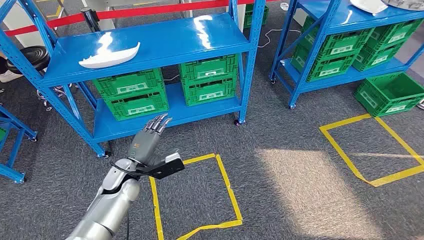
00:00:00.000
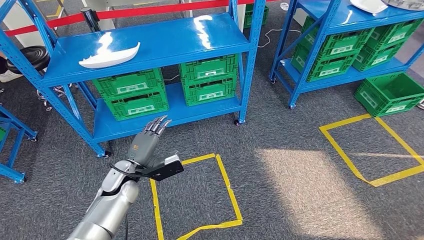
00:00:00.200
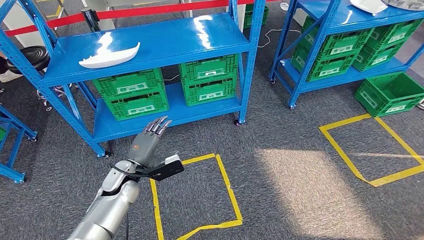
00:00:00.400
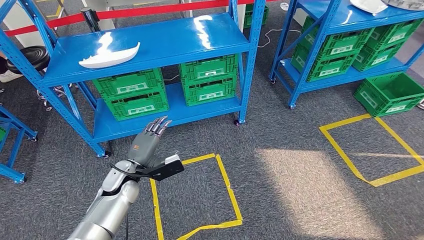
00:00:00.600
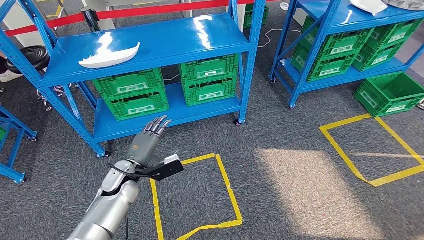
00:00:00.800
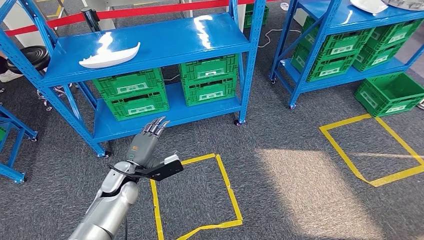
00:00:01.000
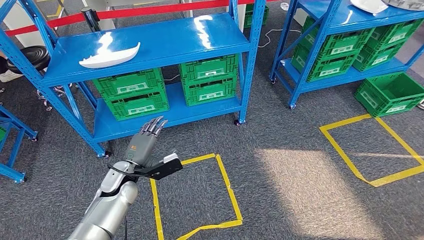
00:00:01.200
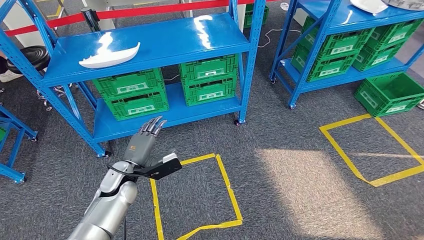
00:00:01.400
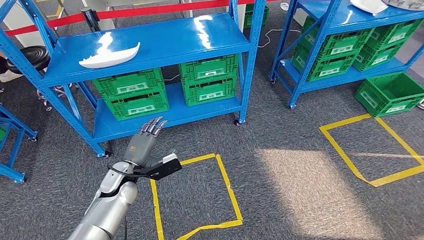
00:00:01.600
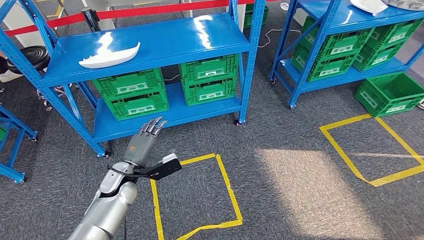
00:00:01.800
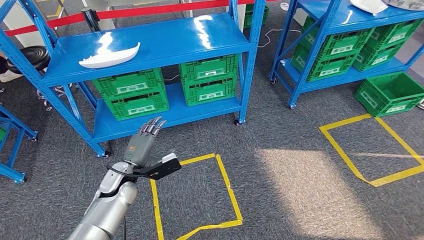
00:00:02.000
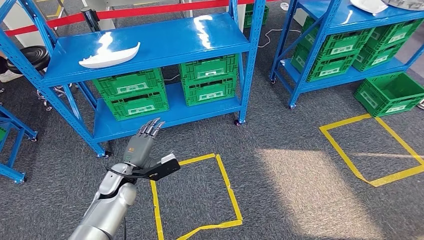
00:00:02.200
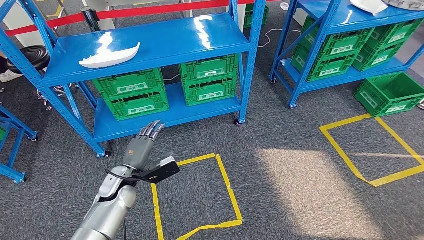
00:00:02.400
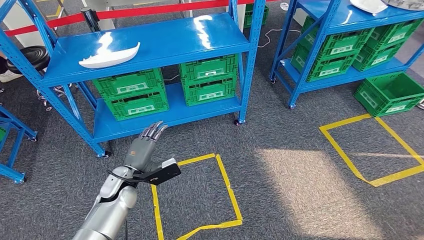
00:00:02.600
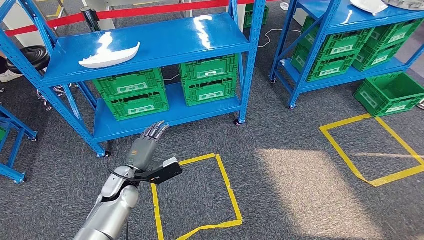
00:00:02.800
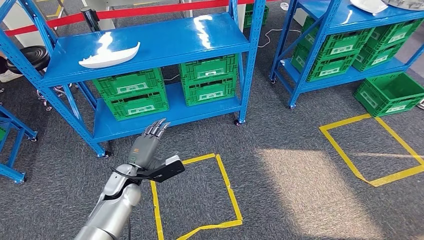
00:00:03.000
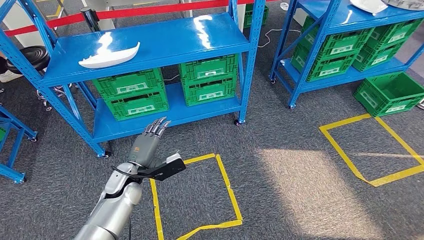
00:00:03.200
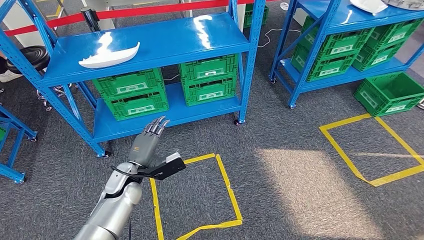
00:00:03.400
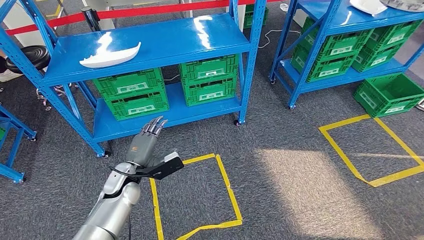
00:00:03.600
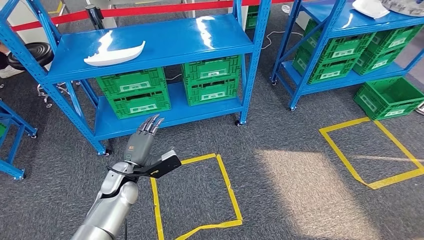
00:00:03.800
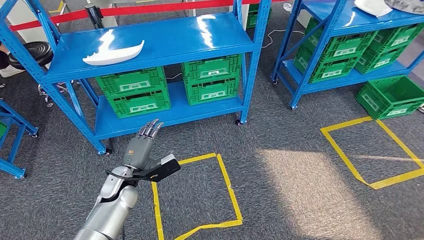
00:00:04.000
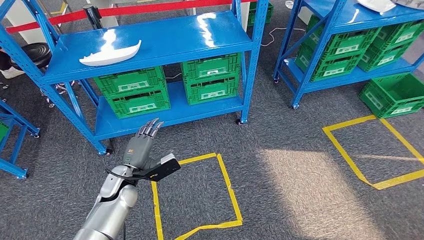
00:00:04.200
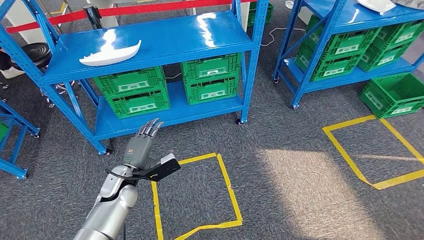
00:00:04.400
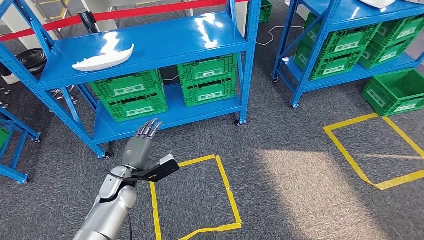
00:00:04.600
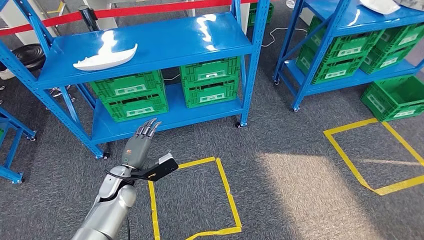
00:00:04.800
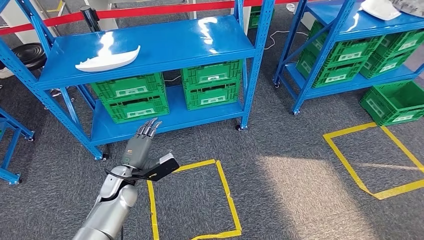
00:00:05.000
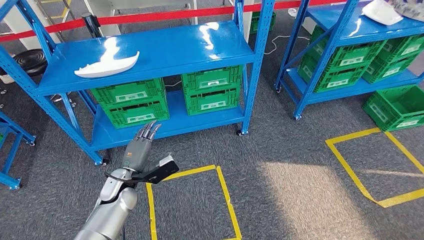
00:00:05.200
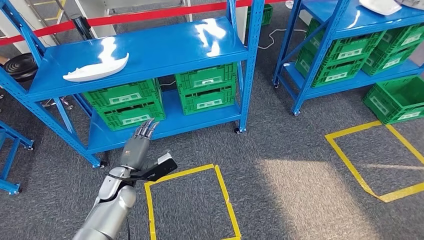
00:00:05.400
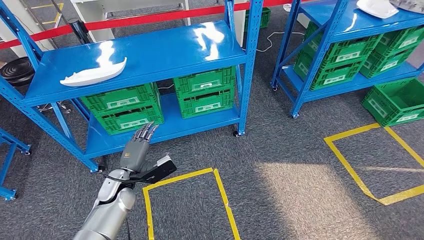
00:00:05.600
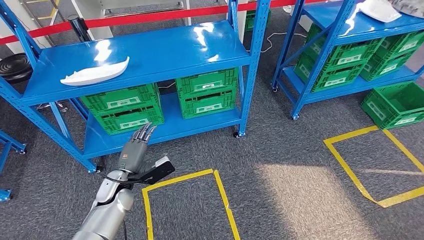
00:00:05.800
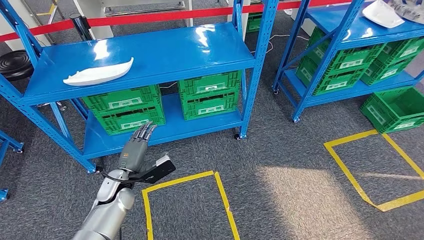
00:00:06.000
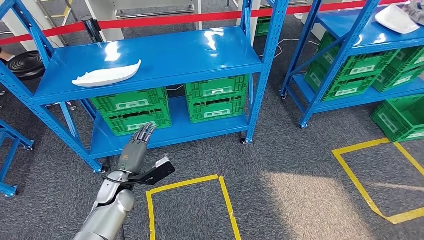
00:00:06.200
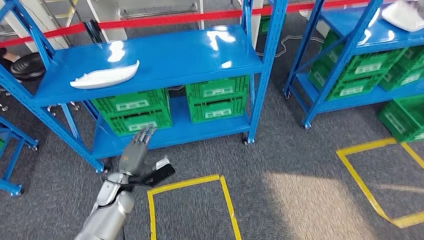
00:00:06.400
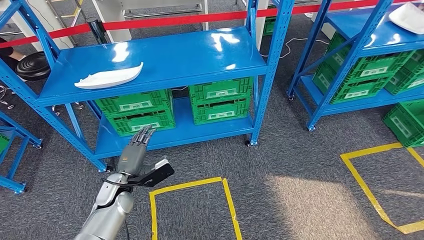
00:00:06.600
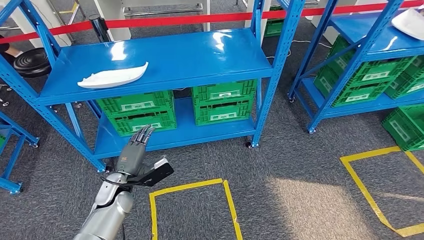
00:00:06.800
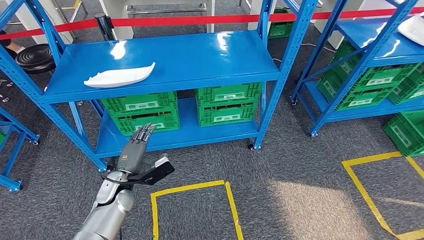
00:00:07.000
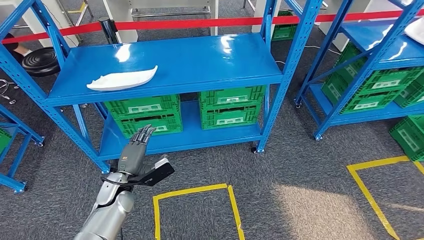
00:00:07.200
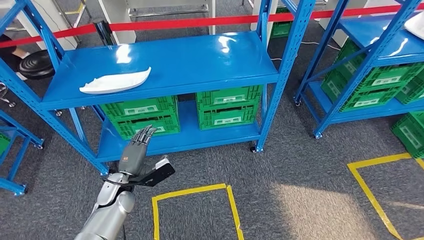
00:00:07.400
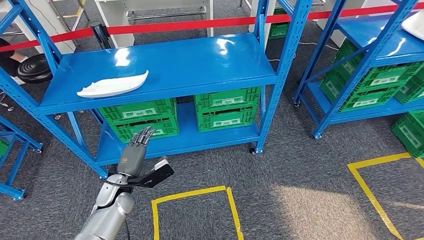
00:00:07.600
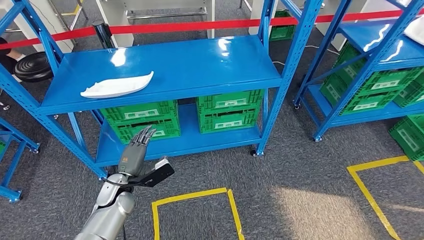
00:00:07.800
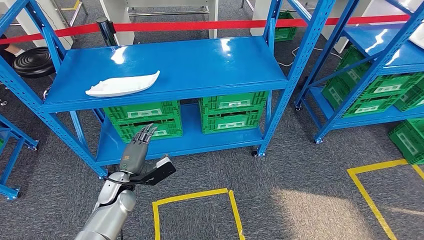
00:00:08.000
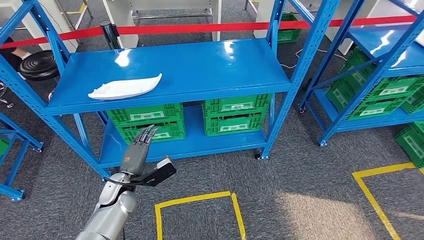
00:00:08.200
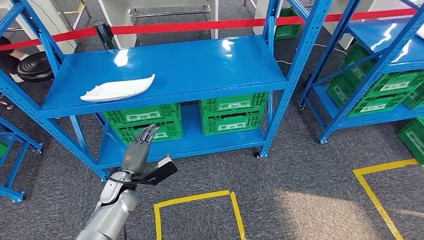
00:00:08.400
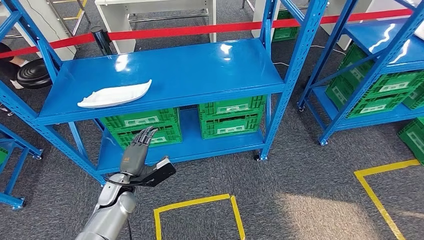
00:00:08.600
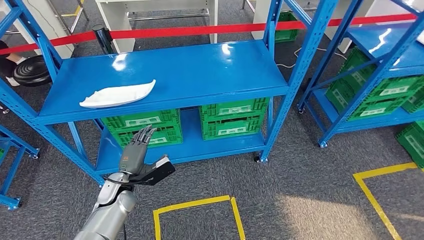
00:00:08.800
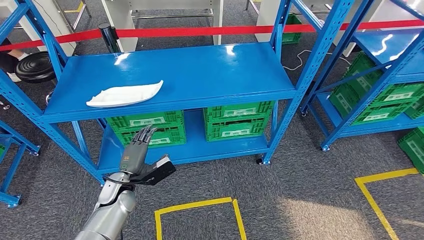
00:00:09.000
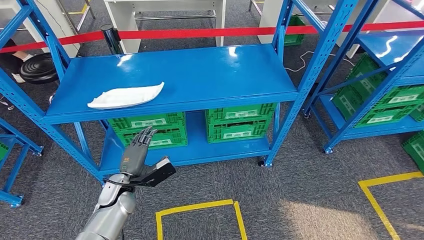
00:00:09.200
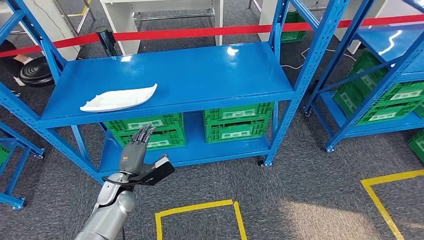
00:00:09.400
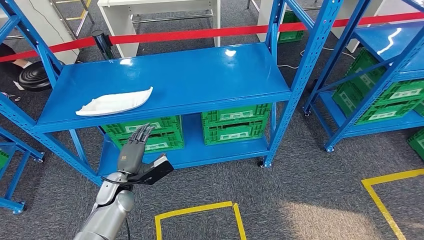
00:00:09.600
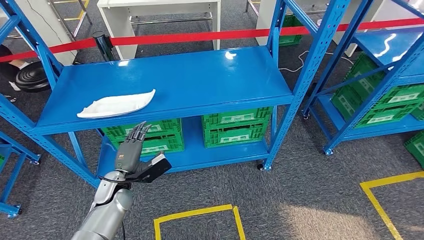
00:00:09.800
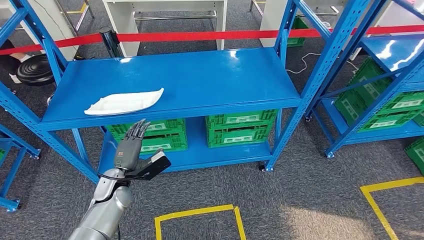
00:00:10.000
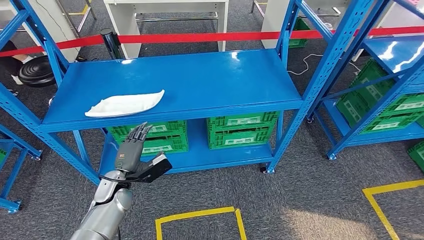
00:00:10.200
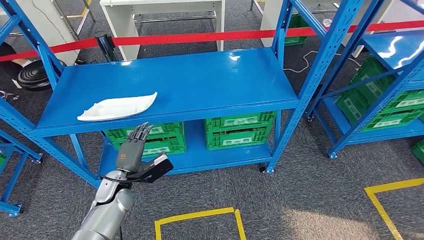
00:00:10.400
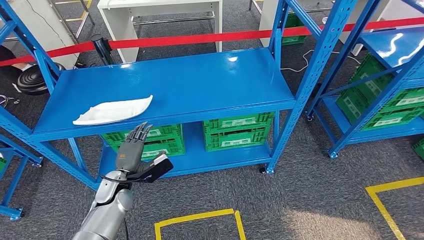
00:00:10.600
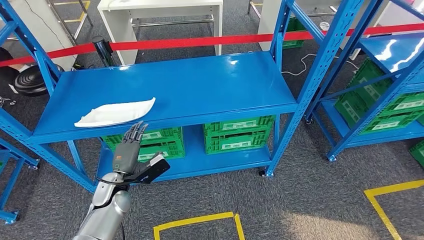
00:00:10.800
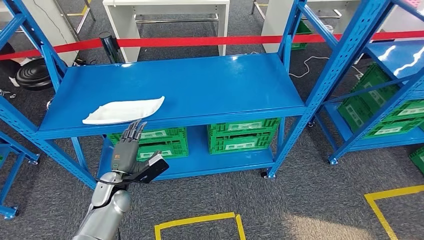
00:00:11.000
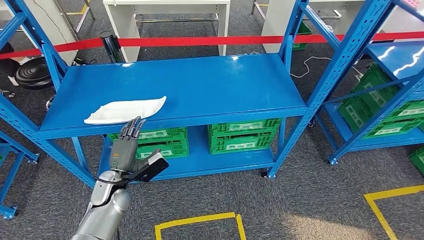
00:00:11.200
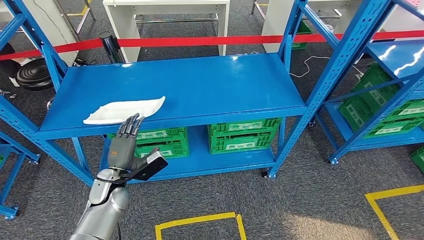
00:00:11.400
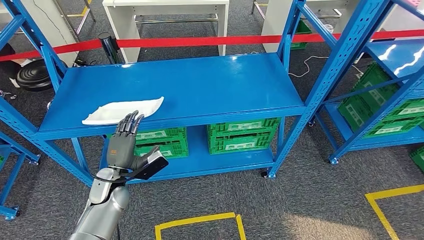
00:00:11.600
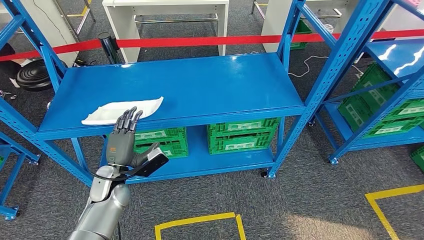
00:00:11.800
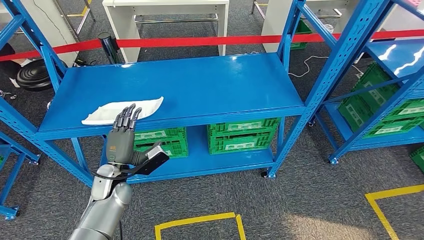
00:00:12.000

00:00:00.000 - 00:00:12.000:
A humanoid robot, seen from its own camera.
00:00:01.600 - 00:00:04.400: Both hands stay put.

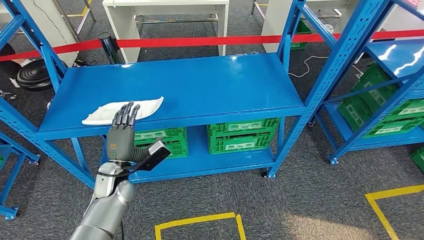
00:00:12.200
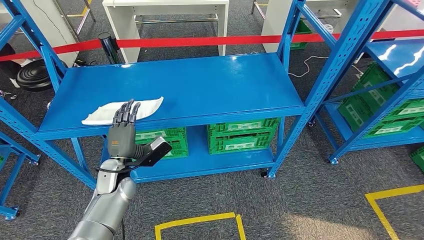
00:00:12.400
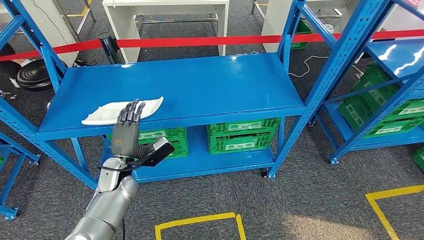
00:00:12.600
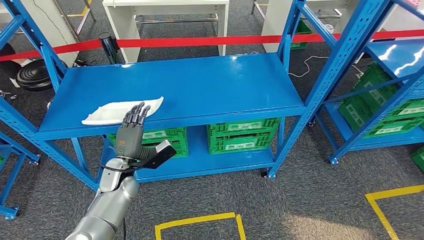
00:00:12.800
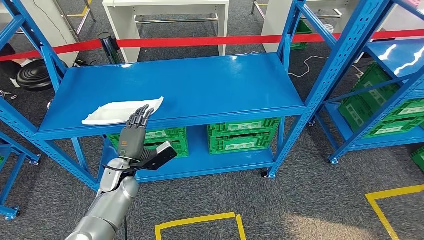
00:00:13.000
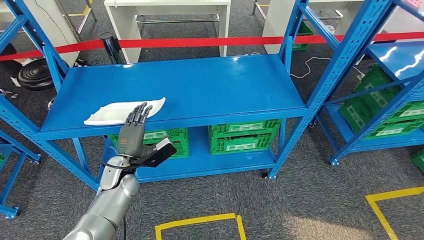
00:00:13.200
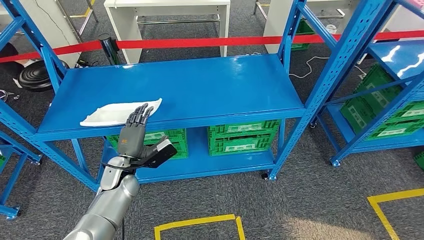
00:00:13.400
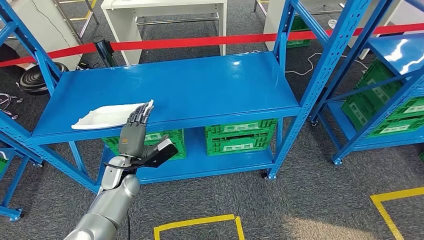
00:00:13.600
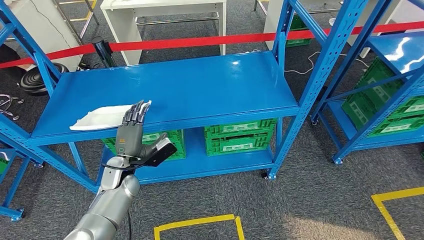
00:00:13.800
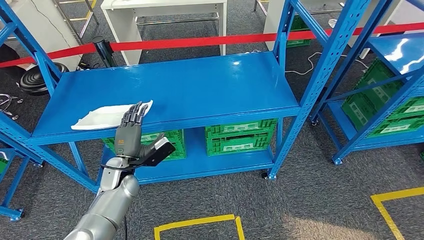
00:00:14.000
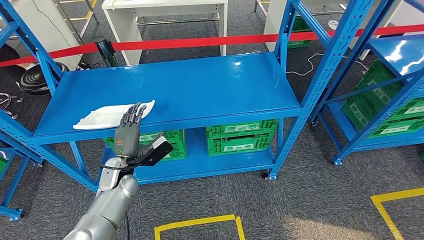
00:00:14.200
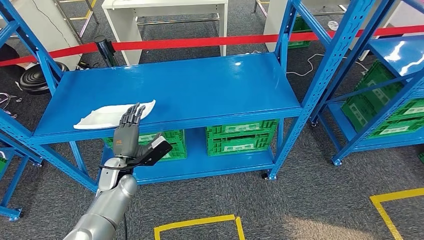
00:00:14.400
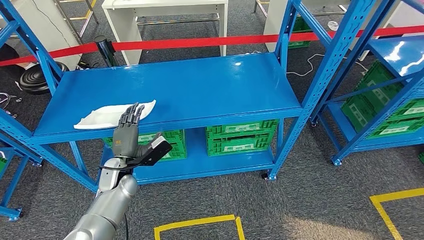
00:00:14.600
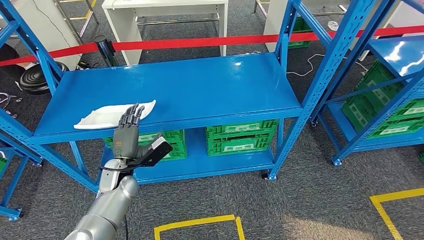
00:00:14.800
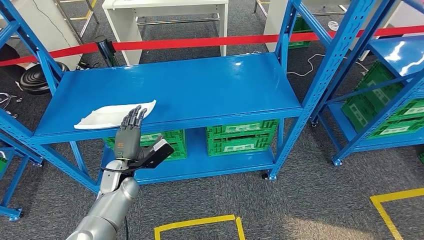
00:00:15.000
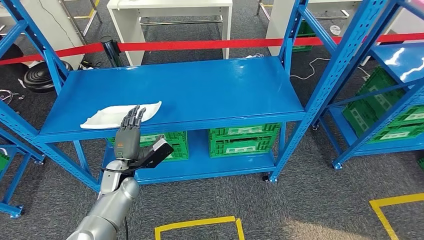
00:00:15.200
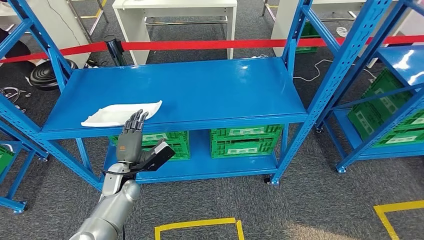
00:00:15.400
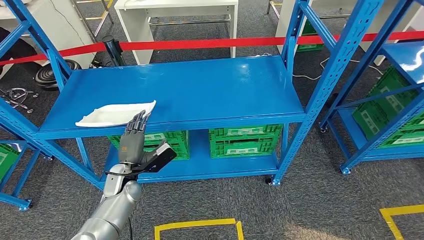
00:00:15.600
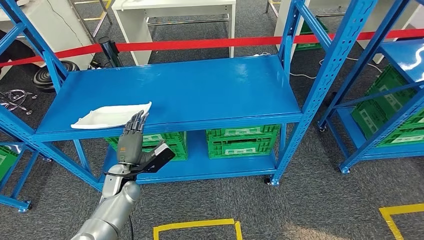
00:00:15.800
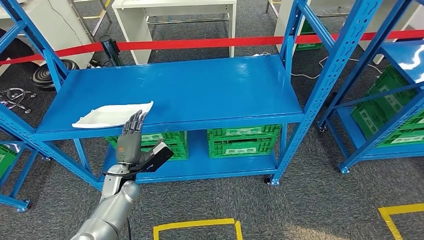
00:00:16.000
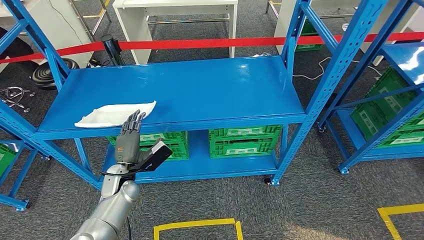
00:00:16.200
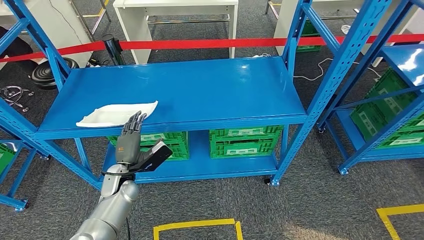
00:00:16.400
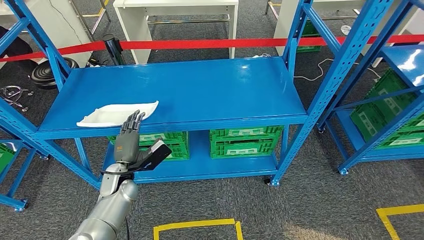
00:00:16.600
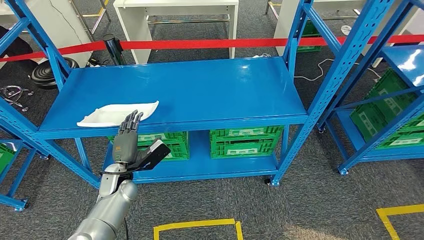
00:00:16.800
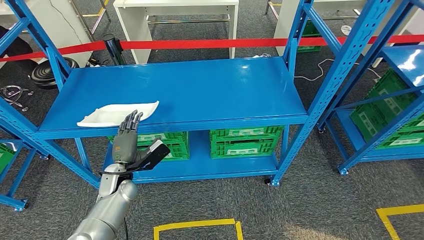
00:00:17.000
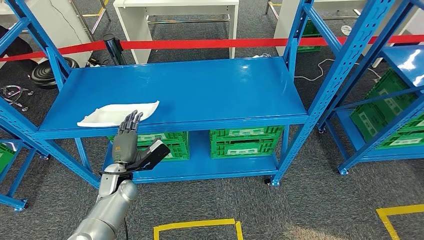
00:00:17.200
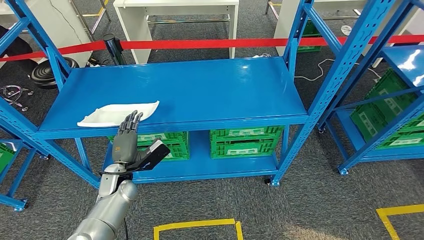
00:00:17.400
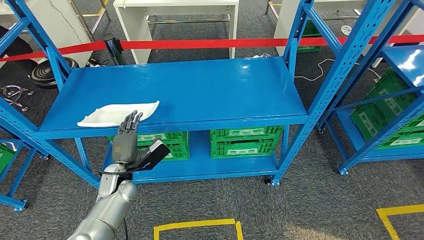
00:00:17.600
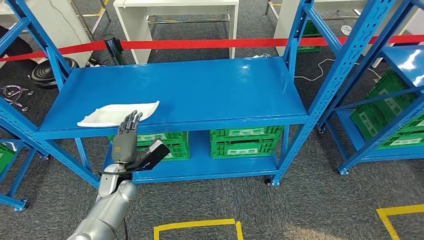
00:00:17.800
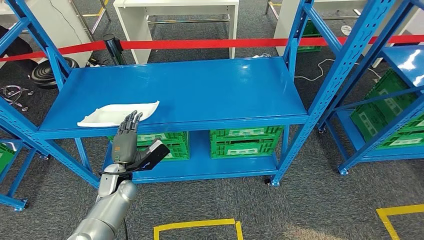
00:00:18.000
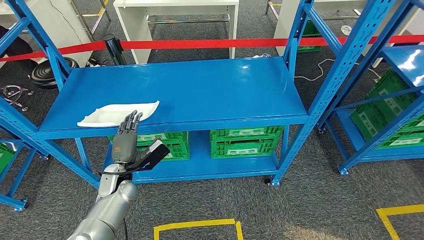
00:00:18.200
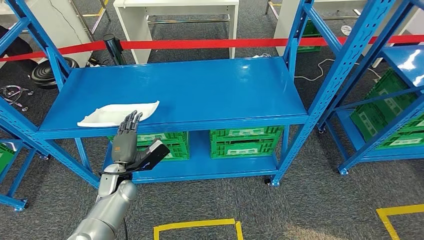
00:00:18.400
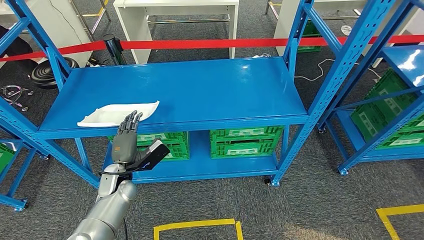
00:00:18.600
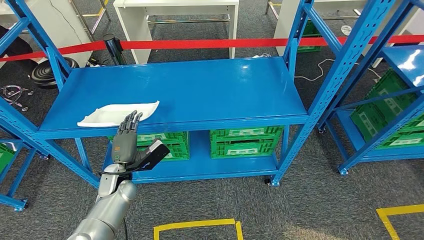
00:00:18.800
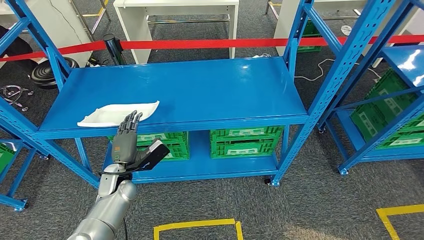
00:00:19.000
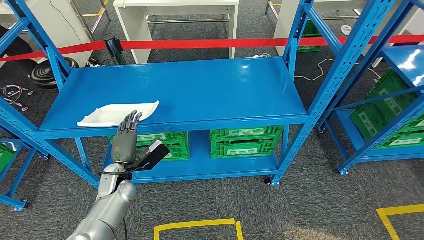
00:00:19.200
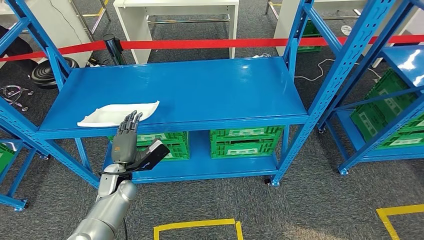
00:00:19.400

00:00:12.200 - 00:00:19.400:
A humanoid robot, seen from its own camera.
00:00:13.600 - 00:00:15.000: The hands make only small movements.
00:00:16.600 - 00:00:19.400: Neither hand changes place.
